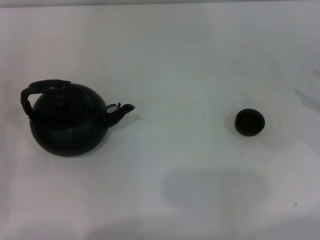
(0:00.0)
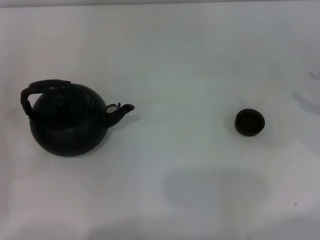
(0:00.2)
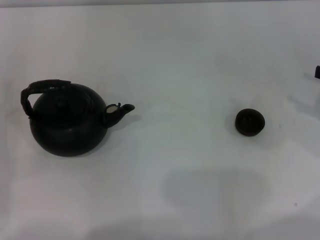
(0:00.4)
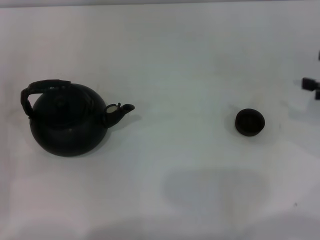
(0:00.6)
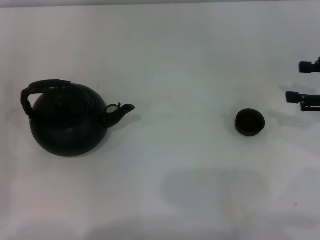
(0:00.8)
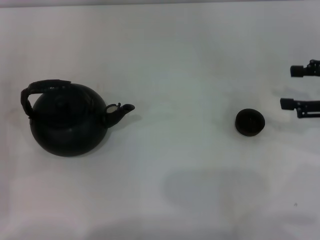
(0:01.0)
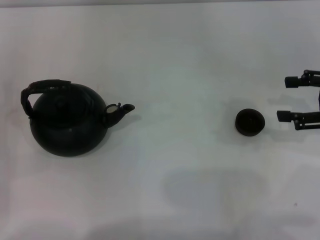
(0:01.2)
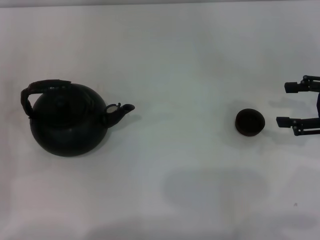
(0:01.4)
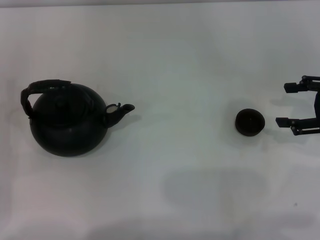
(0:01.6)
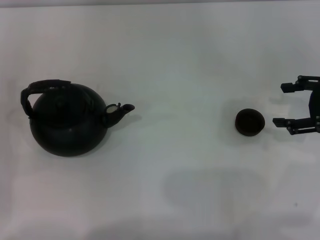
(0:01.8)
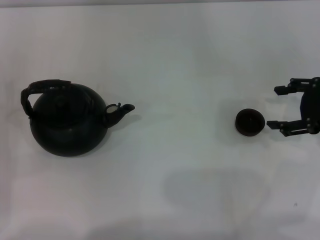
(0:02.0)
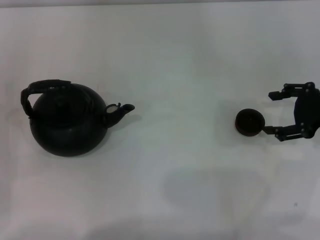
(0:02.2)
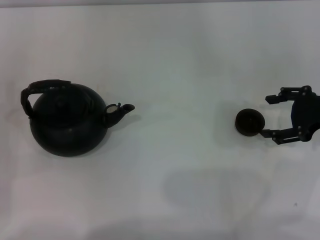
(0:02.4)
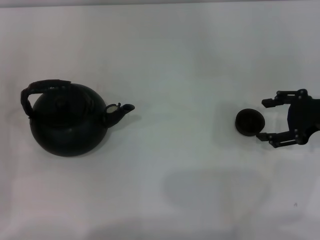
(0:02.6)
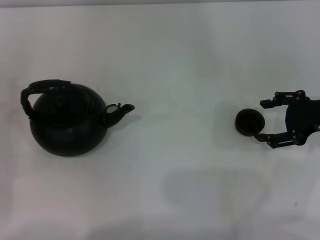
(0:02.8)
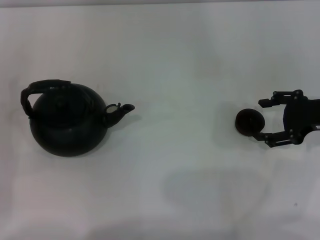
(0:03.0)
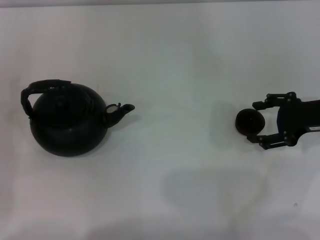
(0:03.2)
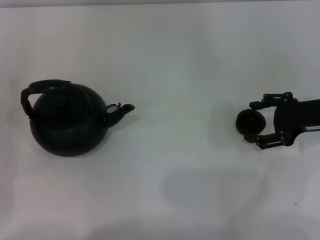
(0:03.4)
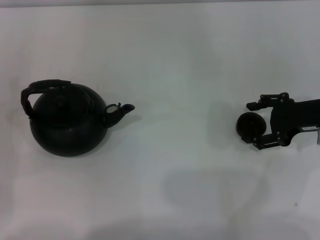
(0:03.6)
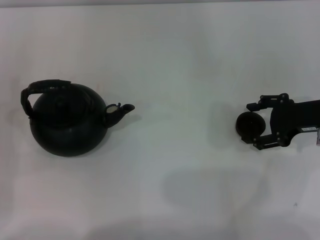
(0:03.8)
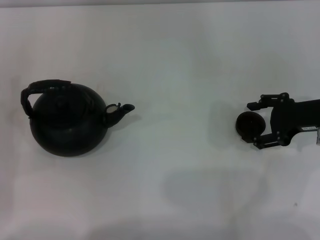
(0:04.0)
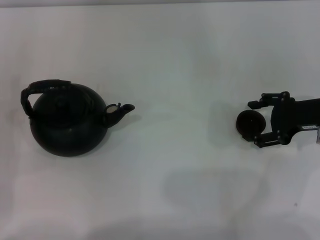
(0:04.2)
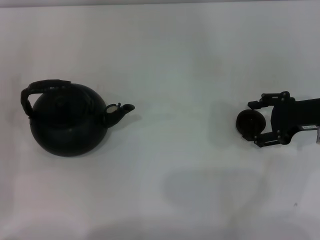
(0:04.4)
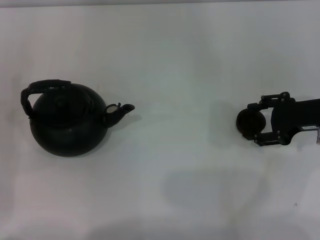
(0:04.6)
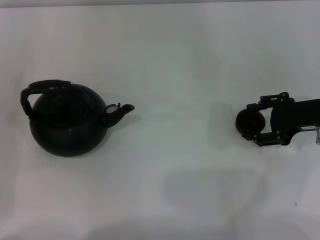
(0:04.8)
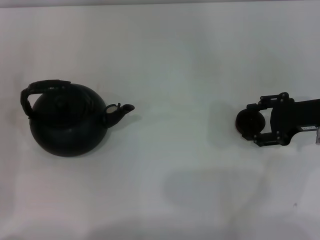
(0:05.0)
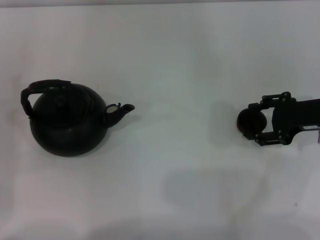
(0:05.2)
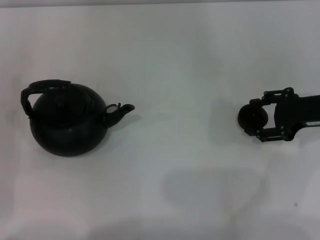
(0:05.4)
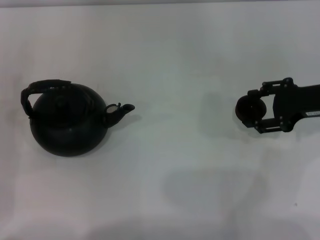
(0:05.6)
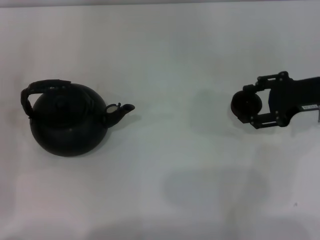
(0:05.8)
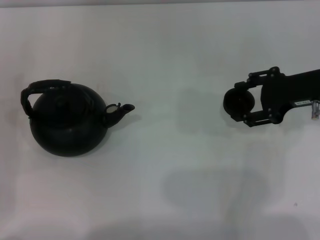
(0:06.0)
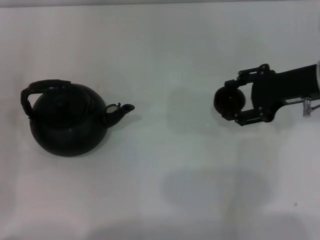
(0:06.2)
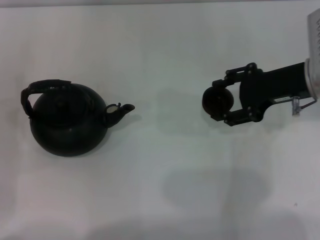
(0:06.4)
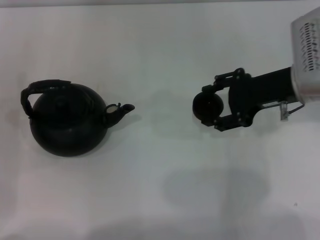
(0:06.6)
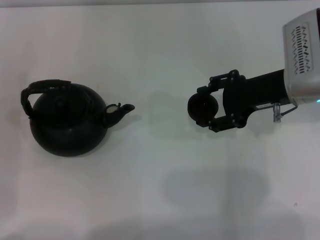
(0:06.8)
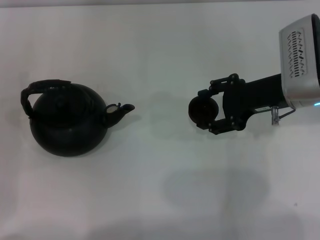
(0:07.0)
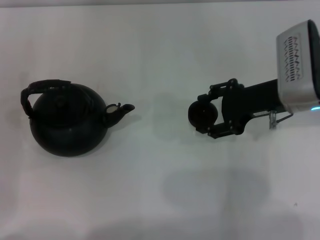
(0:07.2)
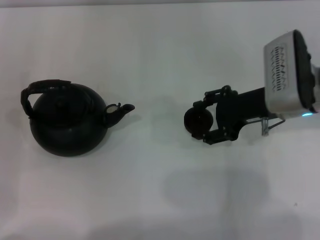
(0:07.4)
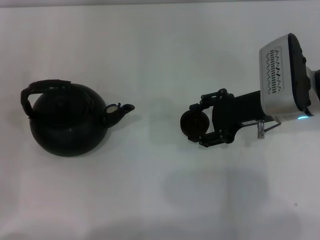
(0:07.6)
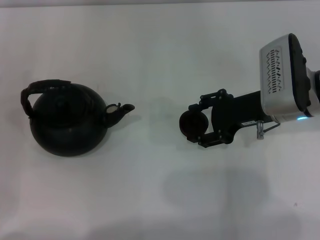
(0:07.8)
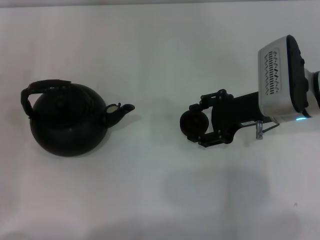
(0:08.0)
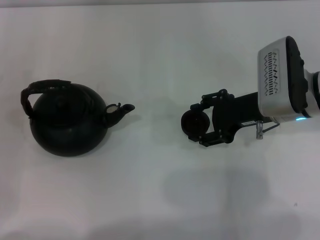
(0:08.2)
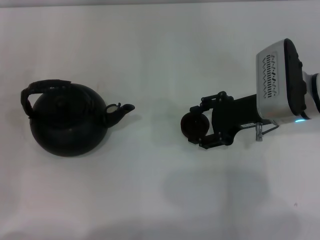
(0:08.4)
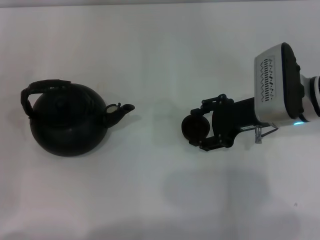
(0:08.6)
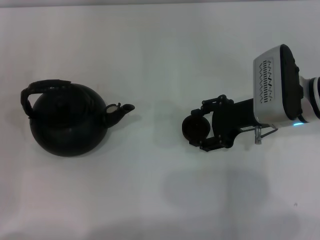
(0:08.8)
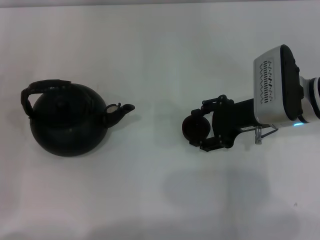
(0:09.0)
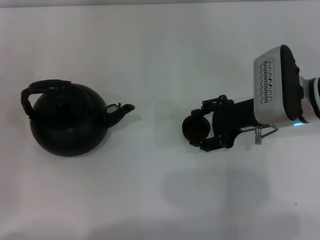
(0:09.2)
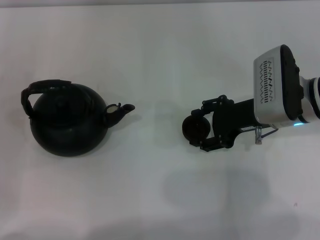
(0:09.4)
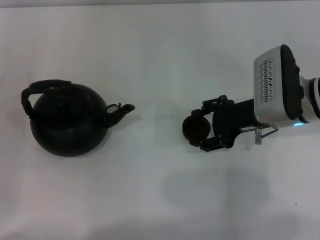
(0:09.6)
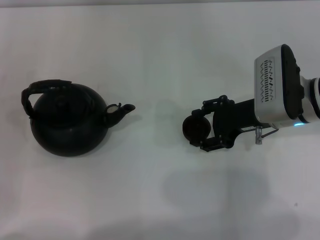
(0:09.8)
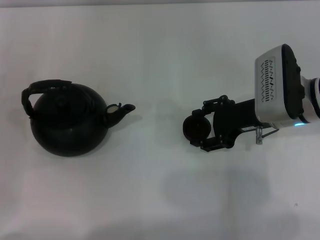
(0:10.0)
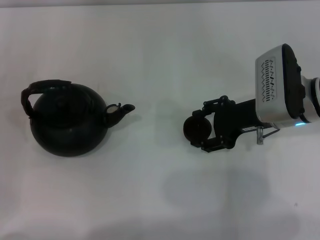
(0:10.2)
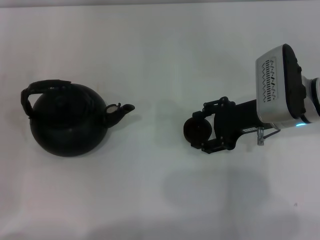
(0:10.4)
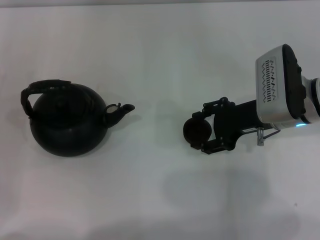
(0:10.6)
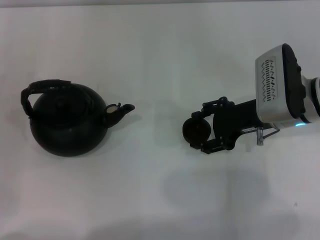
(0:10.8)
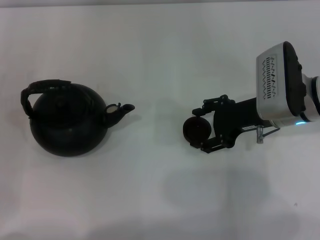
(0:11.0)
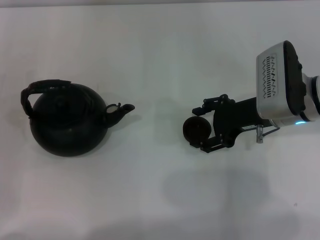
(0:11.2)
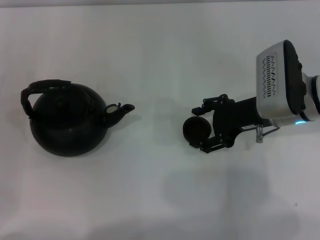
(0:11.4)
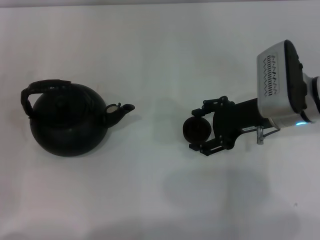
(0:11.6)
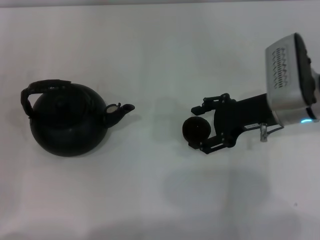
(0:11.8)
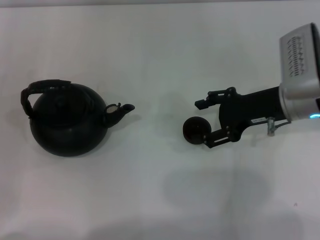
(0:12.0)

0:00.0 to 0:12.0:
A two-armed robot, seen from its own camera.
Task of the whole recording: Grasp the handle of the teapot with one hand and pour tea into the teacup.
Step, 0:00.0 to 0:05.8: Pick up the teacup with the right gripper.
0:00.0 to 0:01.6: The right gripper moves to the left, roughly 5 cm, and opens.
0:01.6 to 0:03.0: The right gripper moves roughly 5 cm.
0:03.0 to 0:04.4: There are only small adjustments of the grippers.
0:04.4 to 0:06.0: The right gripper changes place by some 5 cm, and closes.
0:06.0 to 0:07.6: The right gripper moves to the left, approximately 5 cm.
0:07.6 to 0:09.0: The grippers stay close to where they were, moving slightly.
0:09.0 to 0:10.4: Both grippers stay put.
0:10.4 to 0:12.0: The right gripper opens its fingers.

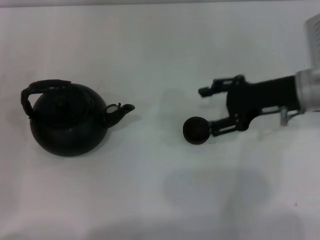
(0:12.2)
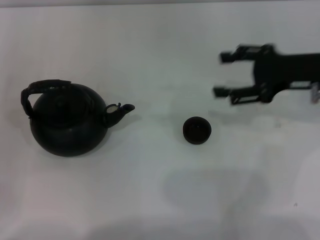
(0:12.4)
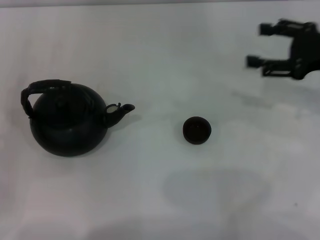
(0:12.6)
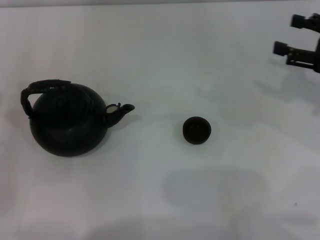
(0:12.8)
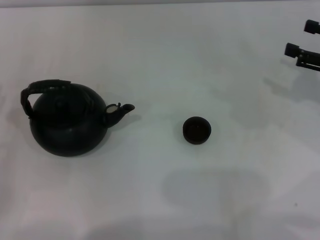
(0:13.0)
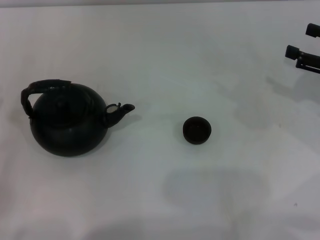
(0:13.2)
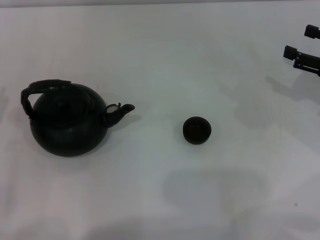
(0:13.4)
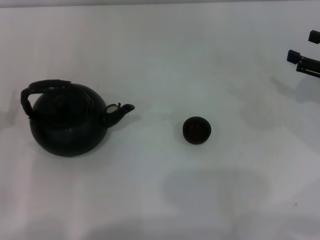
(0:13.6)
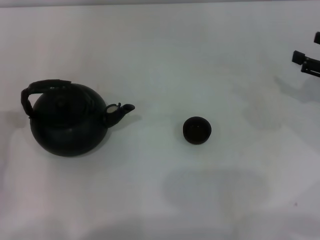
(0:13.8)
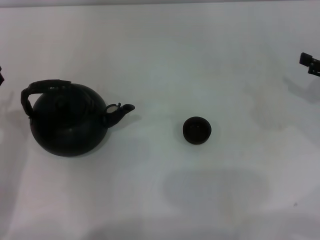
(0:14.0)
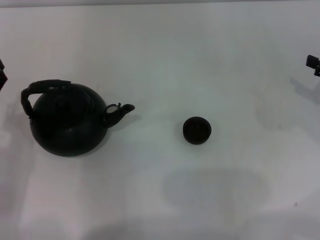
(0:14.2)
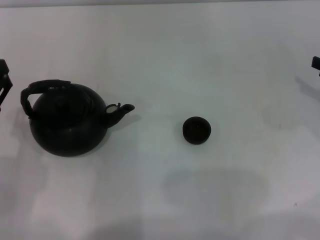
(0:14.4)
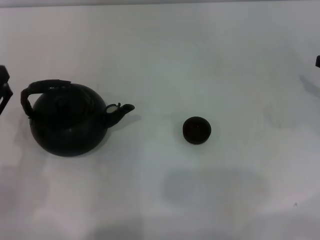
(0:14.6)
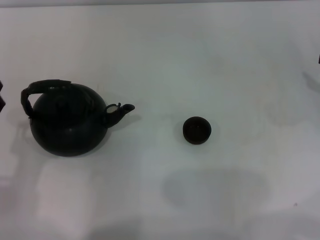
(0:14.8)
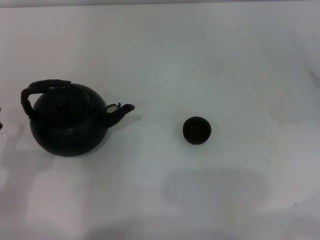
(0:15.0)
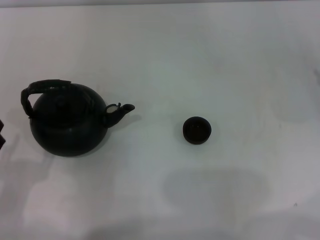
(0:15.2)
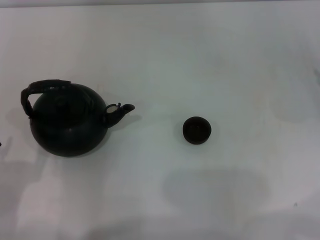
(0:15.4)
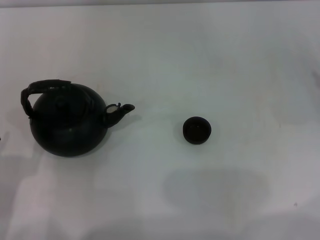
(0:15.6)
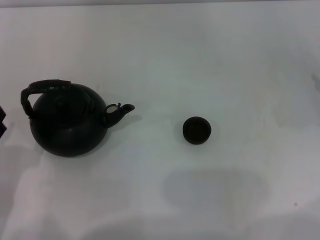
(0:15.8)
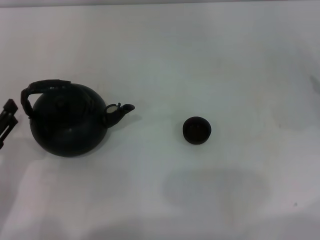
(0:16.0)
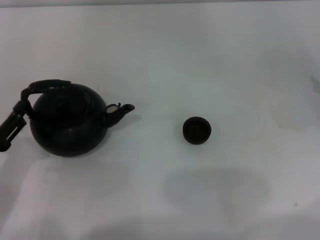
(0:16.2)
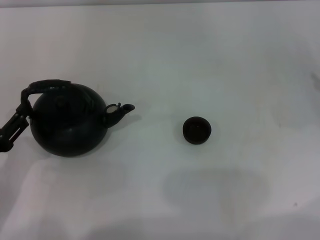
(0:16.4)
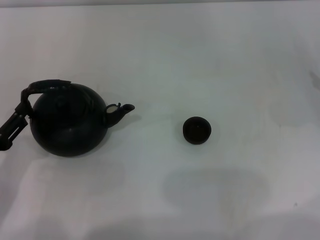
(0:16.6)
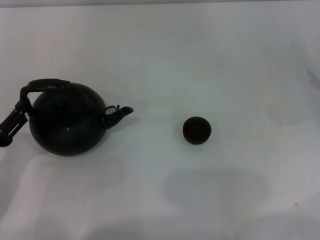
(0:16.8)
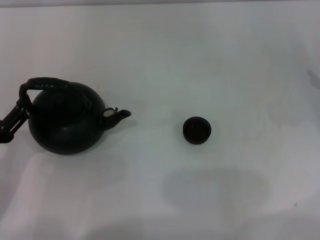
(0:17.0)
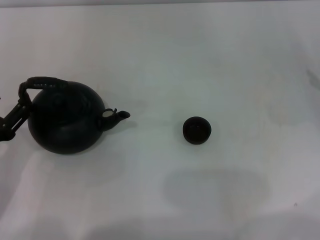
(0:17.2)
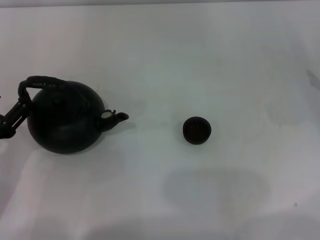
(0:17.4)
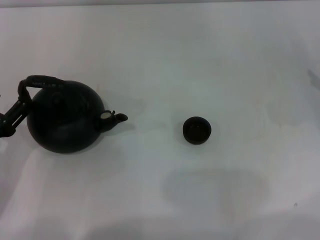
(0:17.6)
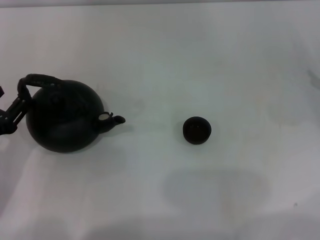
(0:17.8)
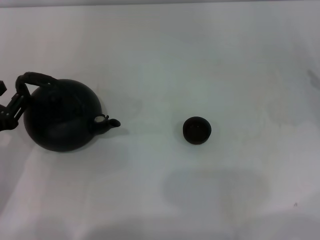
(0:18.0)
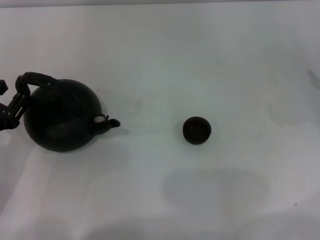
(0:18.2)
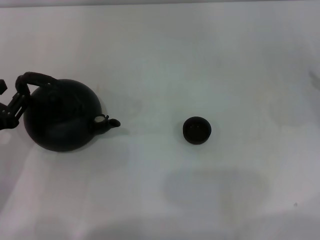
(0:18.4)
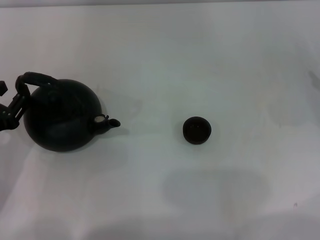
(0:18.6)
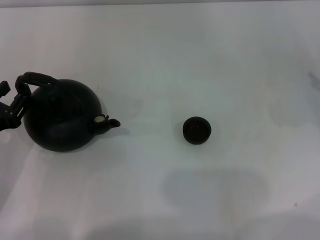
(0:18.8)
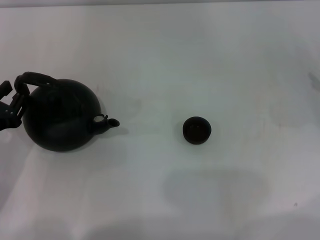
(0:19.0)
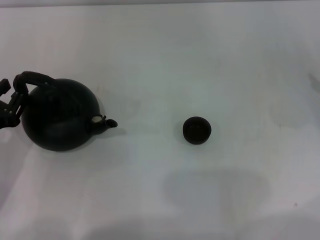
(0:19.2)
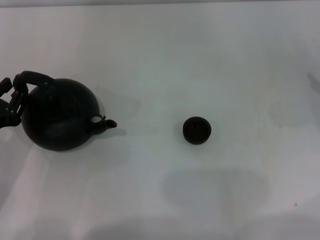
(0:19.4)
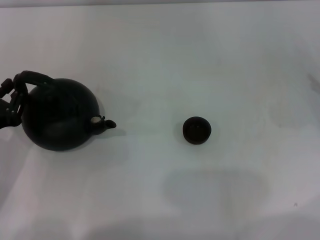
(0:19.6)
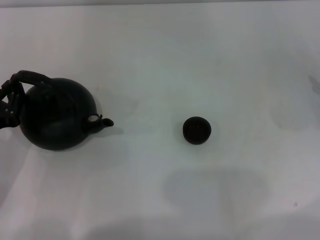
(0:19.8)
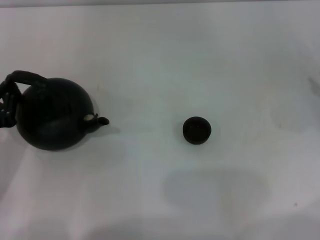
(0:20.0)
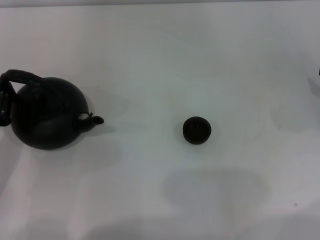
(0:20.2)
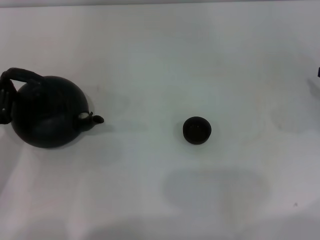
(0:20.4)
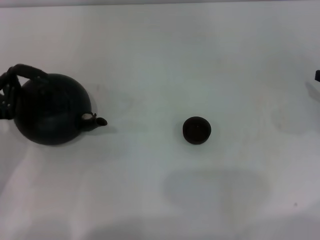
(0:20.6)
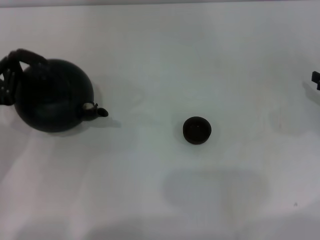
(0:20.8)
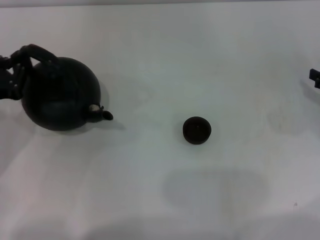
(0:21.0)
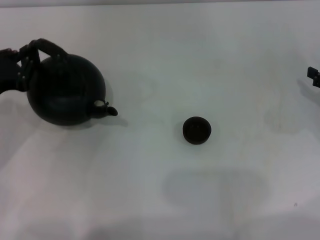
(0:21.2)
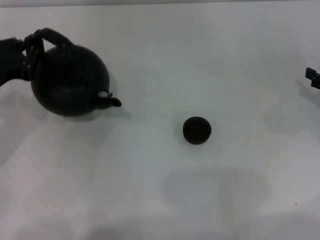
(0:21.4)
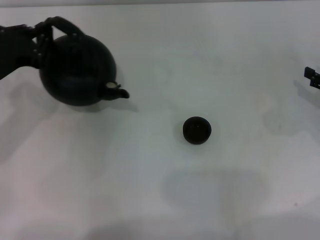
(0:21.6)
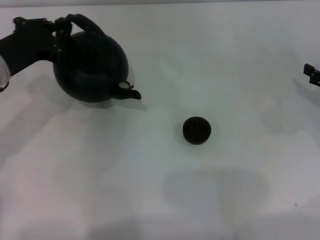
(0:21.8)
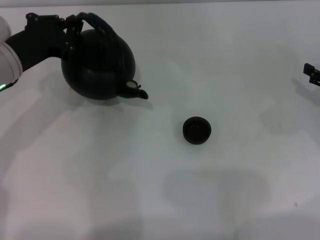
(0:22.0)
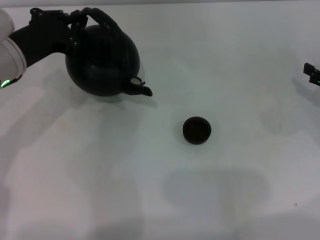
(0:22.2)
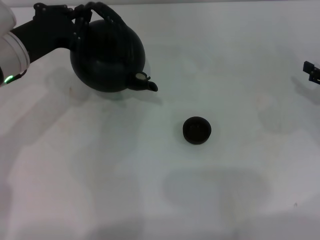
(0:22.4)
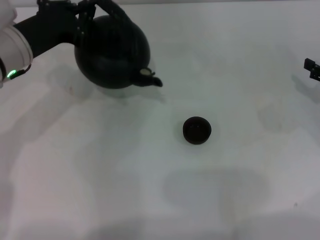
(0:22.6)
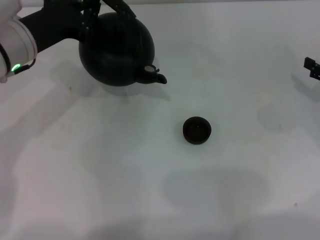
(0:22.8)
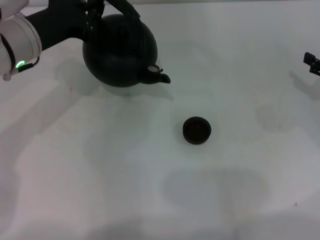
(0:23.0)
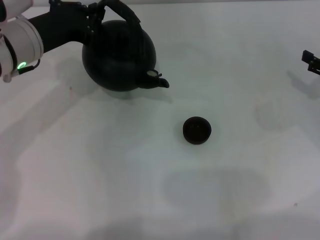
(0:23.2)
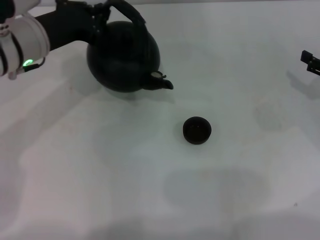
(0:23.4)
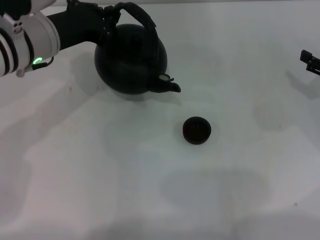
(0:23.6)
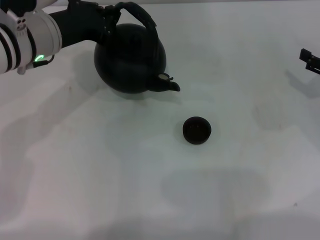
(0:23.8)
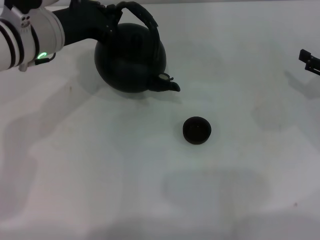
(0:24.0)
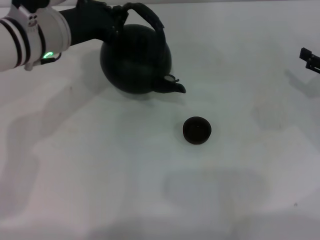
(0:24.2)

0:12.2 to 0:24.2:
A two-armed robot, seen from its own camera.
Task of the whole recording: Grasp the handle of the teapot with one hand and pour tea into the teacup.
Step, 0:12.6 to 0:22.2: Pick up the teapot with the left gripper.
0:12.2 to 0:13.8: The right gripper shifts approximately 15 cm to the right.
0:13.8 to 0:15.2: The left gripper heads backward, covering about 10 cm.
0:15.2 to 0:16.6: The left gripper is displaced forward by about 5 cm.
0:16.6 to 0:18.2: There are only small adjustments of the grippers.
0:18.2 to 0:19.8: The left gripper closes its fingers.
0:19.8 to 0:21.2: The left gripper heads forward, covering about 5 cm.
0:21.2 to 0:22.6: The left gripper is displaced to the right and forward by approximately 10 cm.
0:22.6 to 0:24.2: The left gripper moves about 5 cm.
